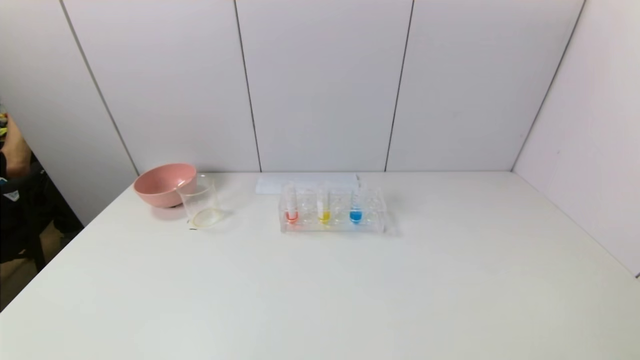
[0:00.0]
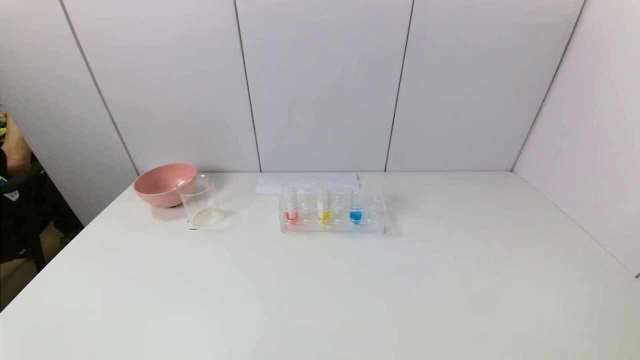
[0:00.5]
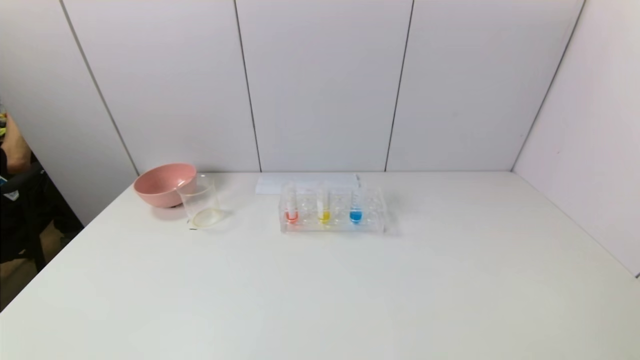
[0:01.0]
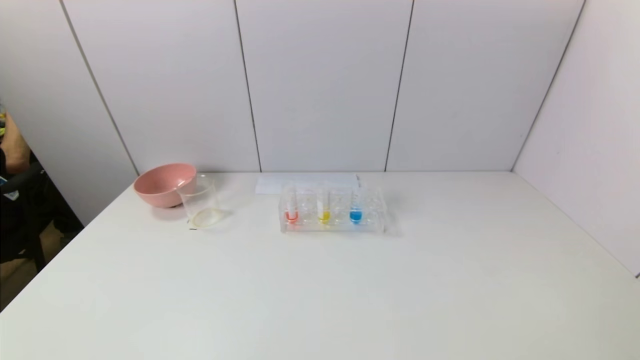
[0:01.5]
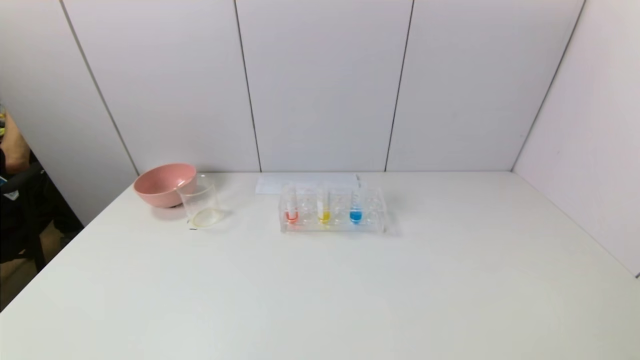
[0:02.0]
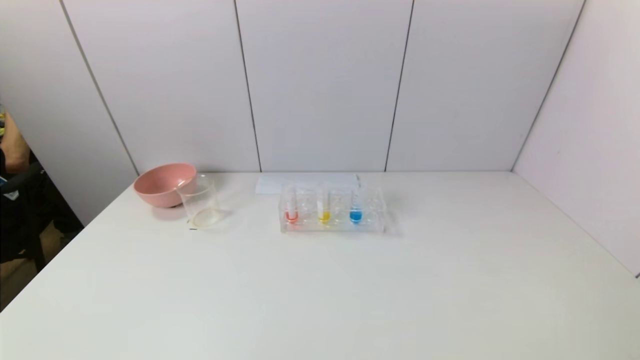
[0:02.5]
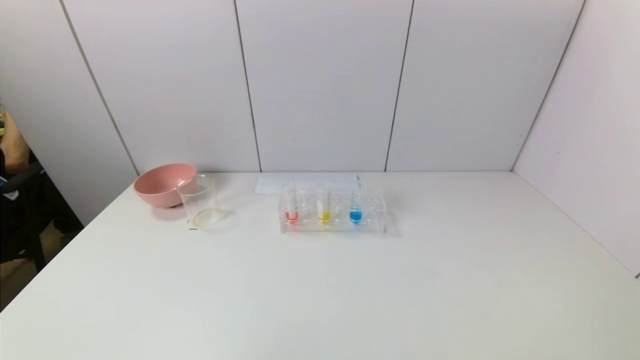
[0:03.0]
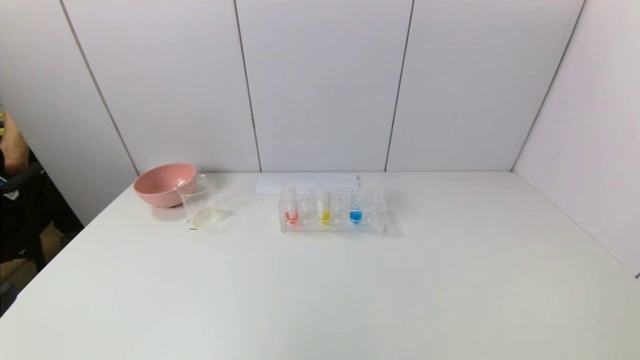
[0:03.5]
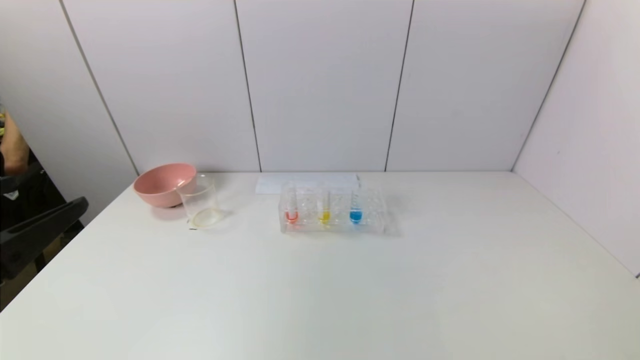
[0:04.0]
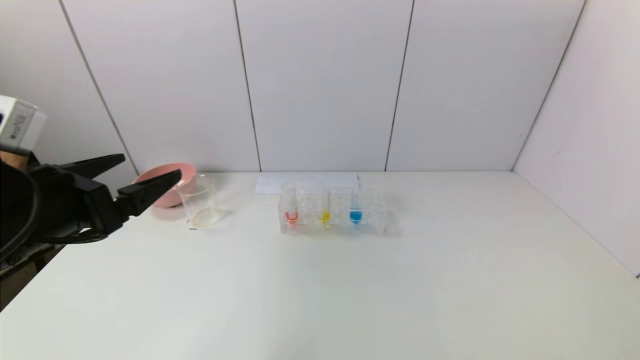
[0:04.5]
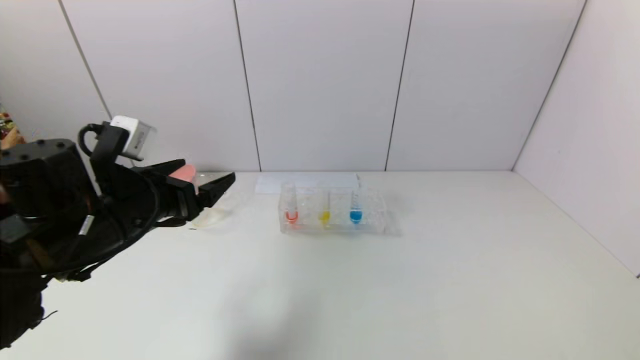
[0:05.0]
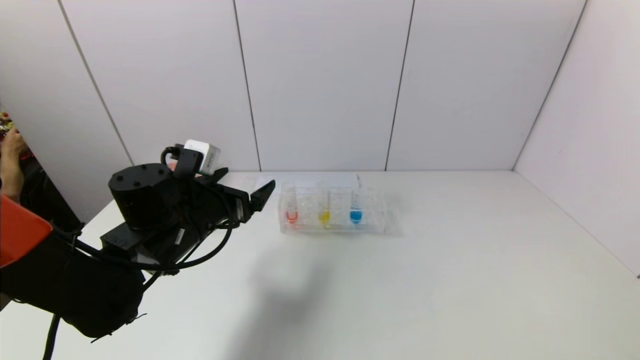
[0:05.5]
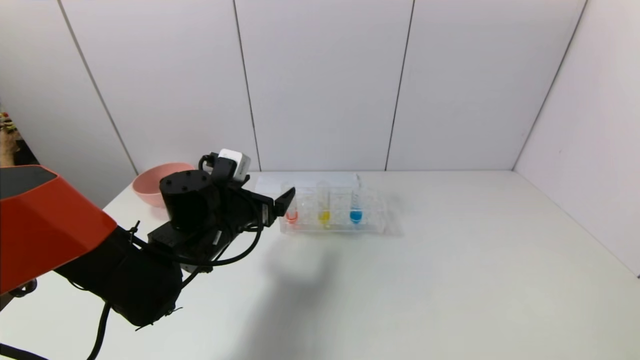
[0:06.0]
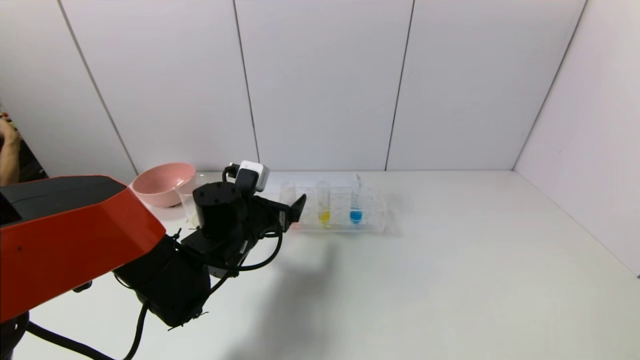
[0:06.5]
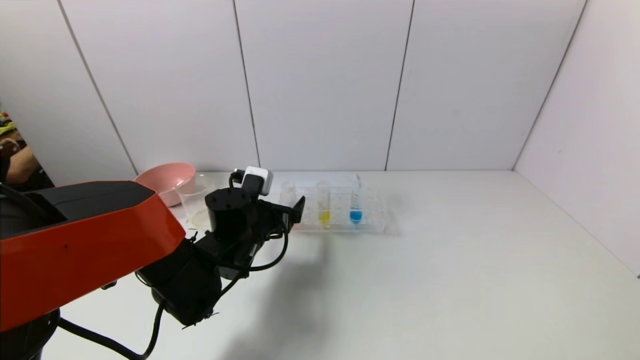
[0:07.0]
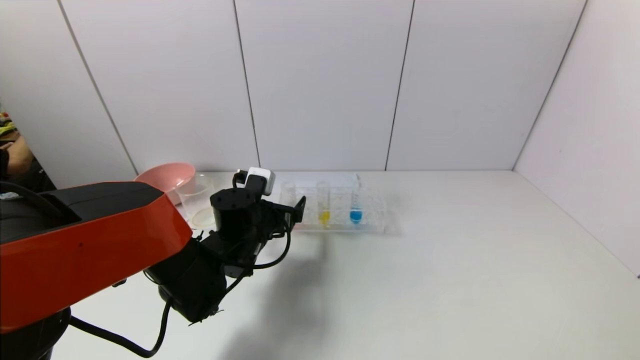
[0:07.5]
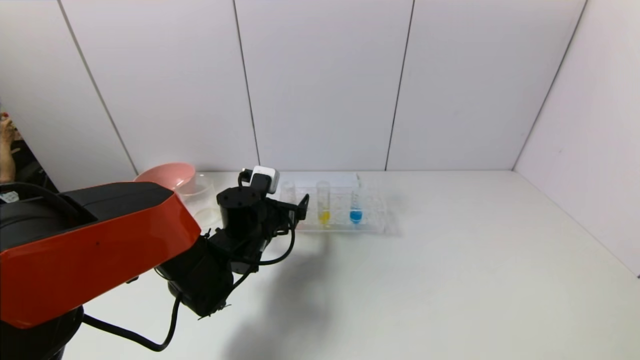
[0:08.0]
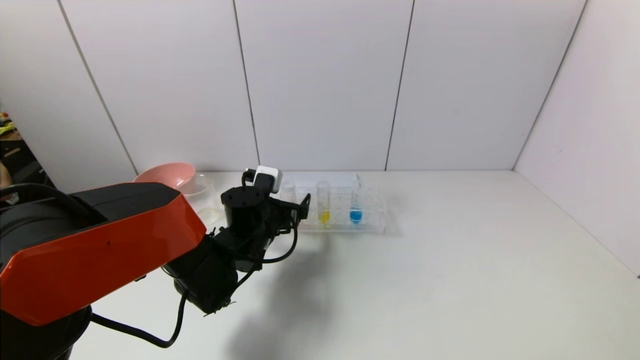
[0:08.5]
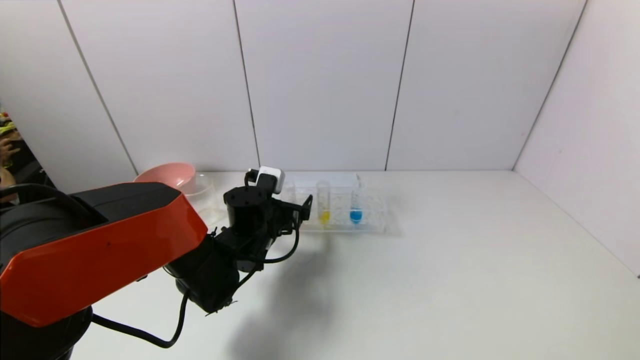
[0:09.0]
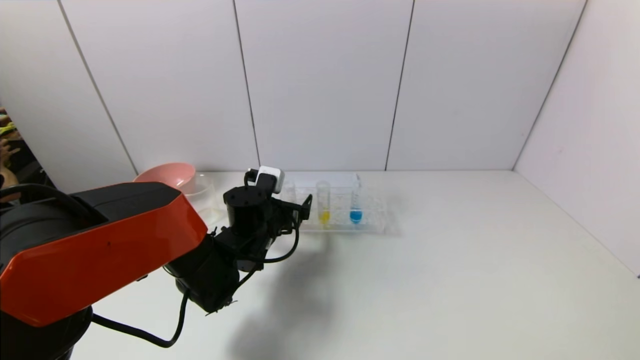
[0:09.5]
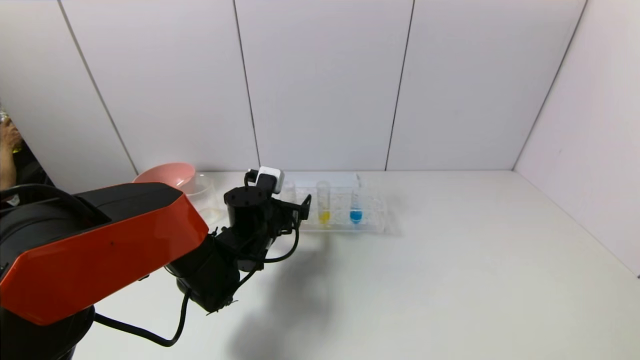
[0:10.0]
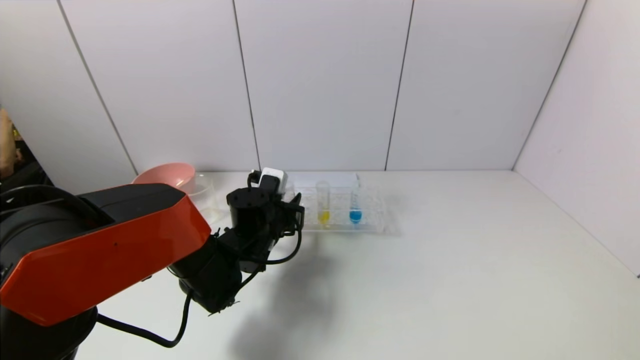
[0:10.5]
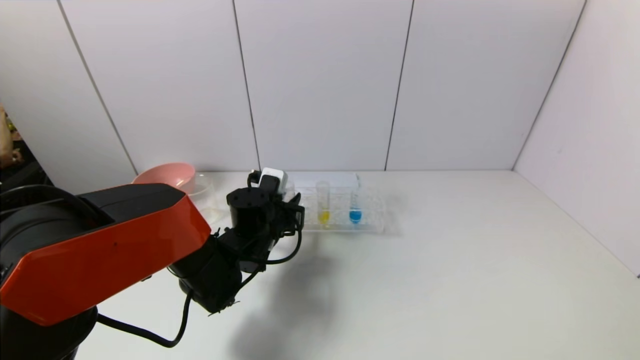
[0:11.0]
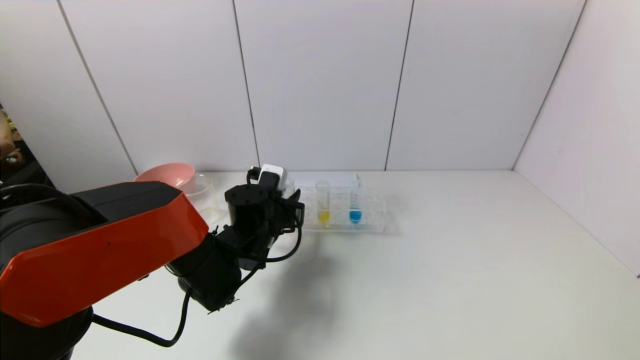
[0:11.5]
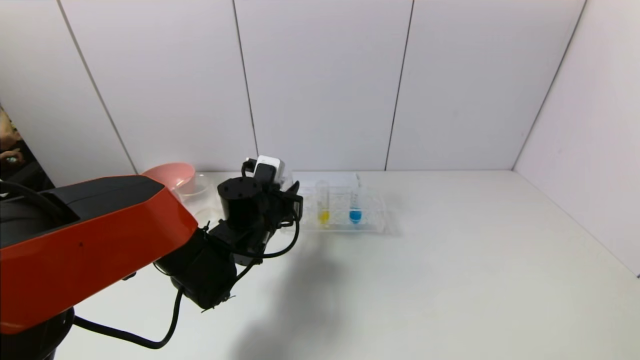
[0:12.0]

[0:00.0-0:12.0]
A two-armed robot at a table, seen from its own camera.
Task of the whole recording: pick up the test tube with yellow pigment and the test tube with red pigment by grippers and pour them into the beaker.
Step, 0:00.0 to 0:10.5: Grasp the red reagent with the left gripper.
0:00.0 to 0:02.0: Both grippers stay about where they are.
0:04.0 to 0:06.0: The left gripper travels forward, to the right and downward by roughly 30 cm.
0:06.0 to 0:08.0: The left gripper changes place by approximately 5 cm.
0:08.0 to 0:10.0: Both grippers stay put.
0:10.0 to 0:12.0: The left gripper closes its fingers.

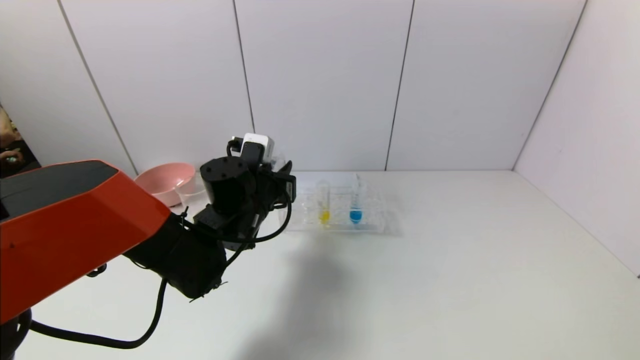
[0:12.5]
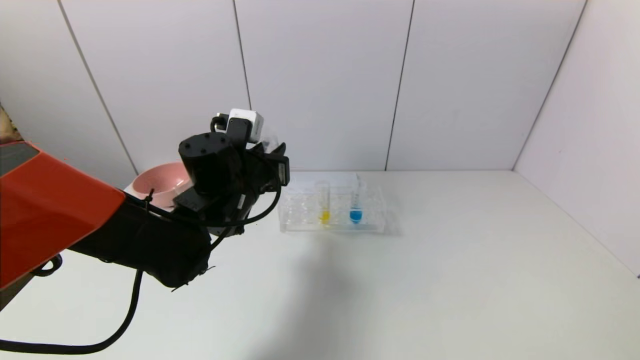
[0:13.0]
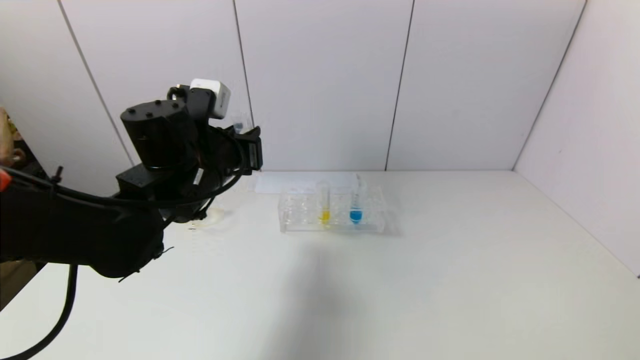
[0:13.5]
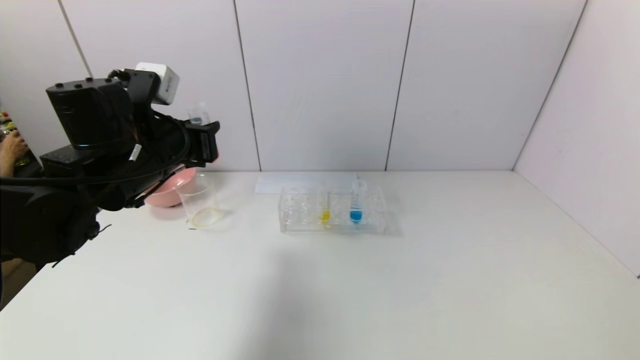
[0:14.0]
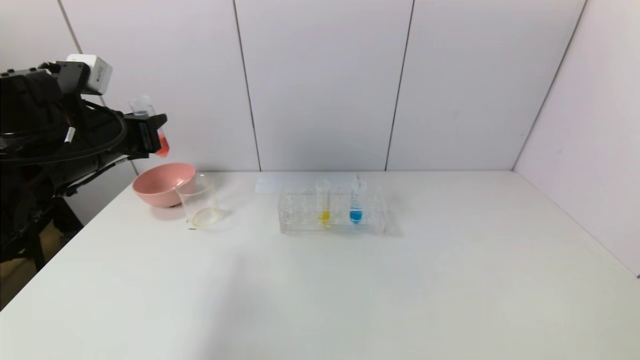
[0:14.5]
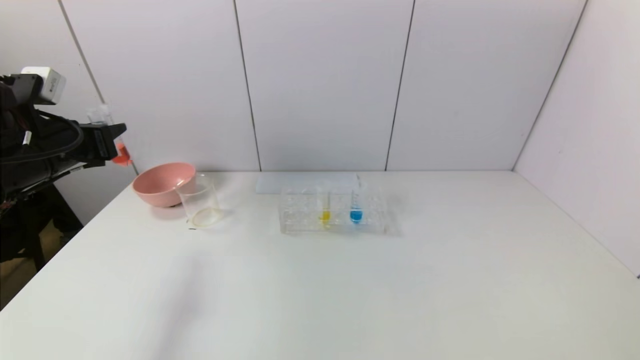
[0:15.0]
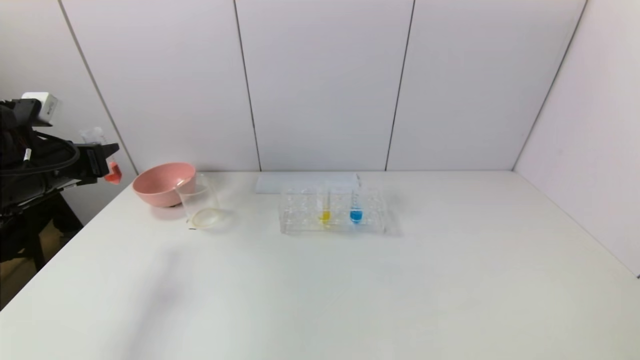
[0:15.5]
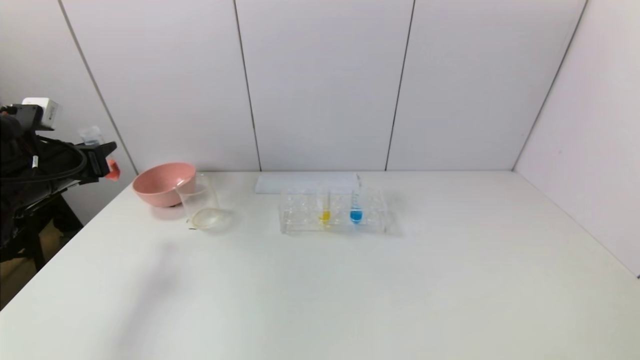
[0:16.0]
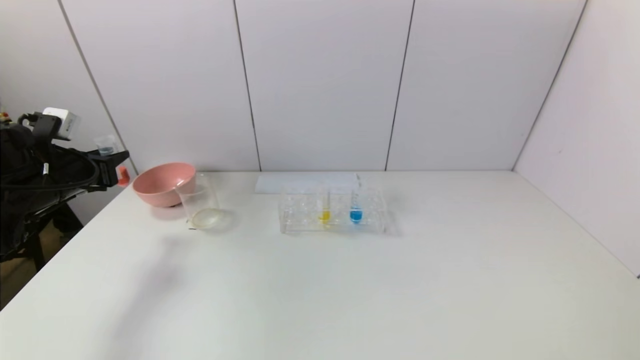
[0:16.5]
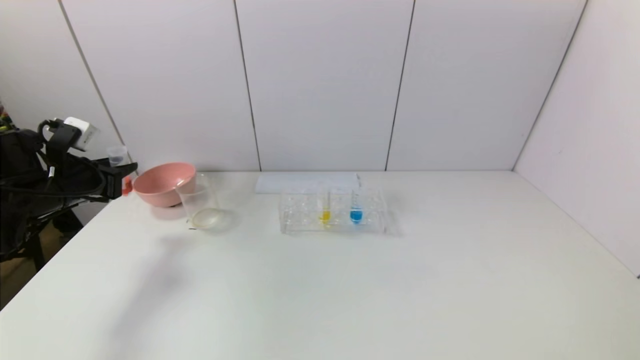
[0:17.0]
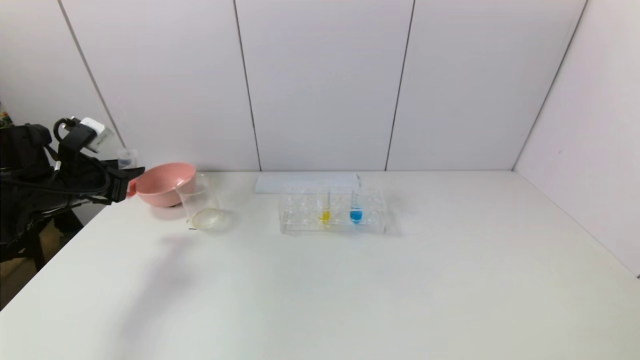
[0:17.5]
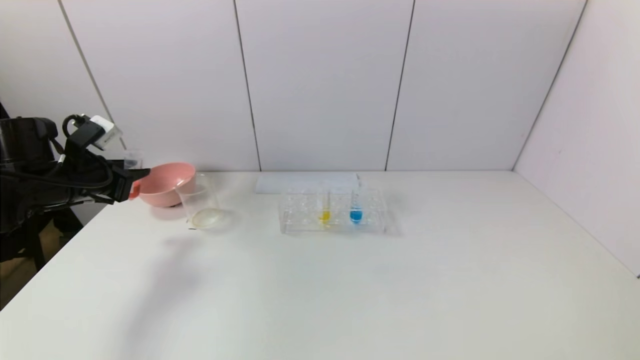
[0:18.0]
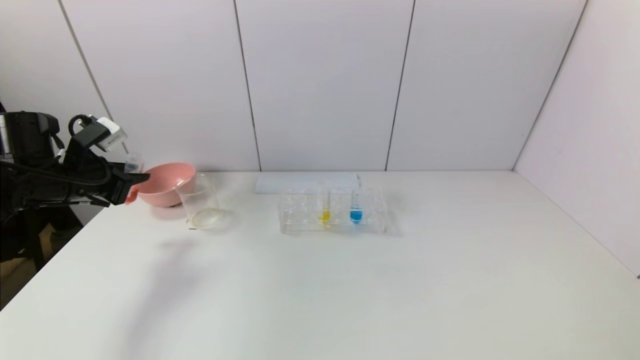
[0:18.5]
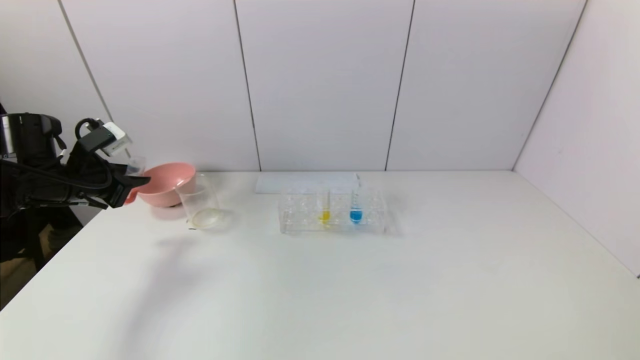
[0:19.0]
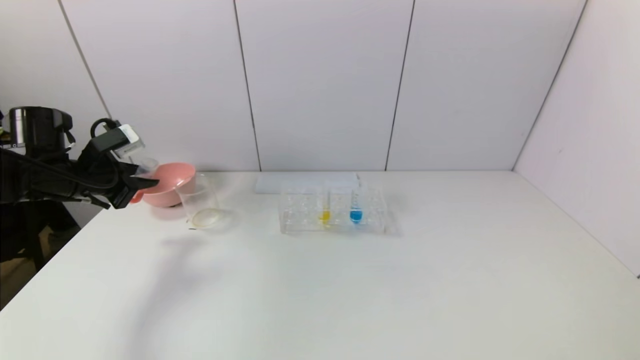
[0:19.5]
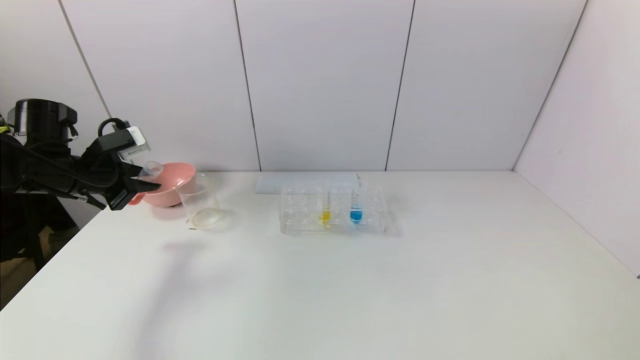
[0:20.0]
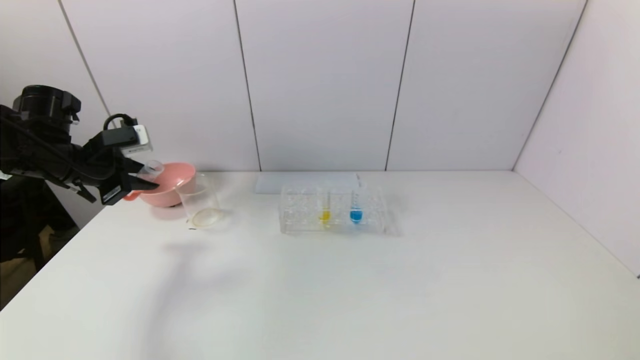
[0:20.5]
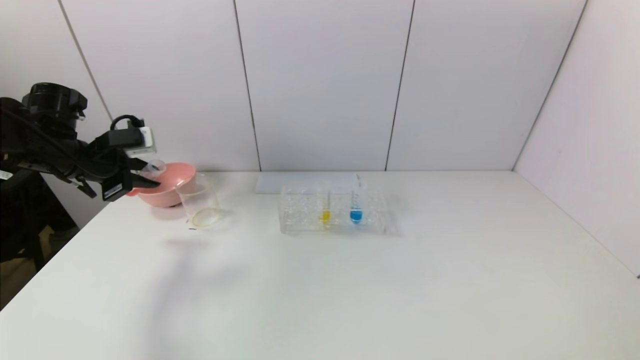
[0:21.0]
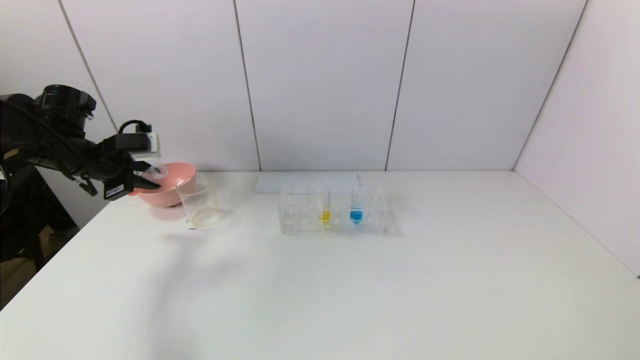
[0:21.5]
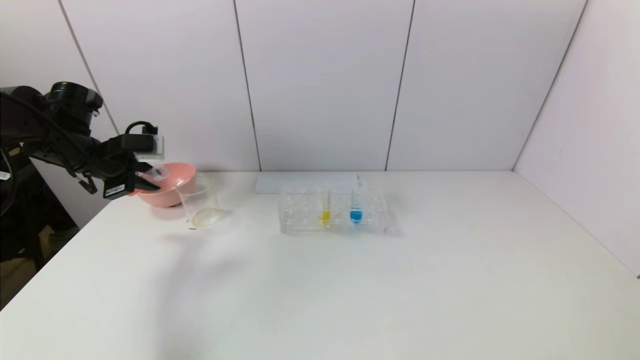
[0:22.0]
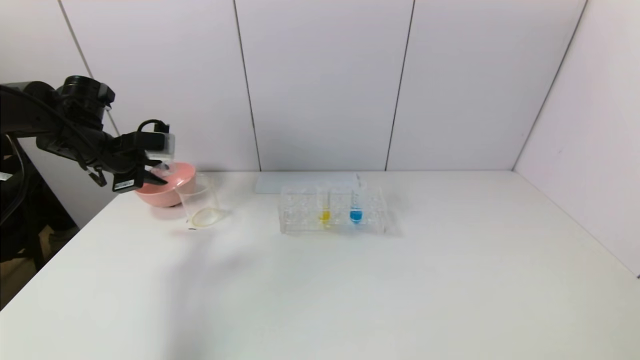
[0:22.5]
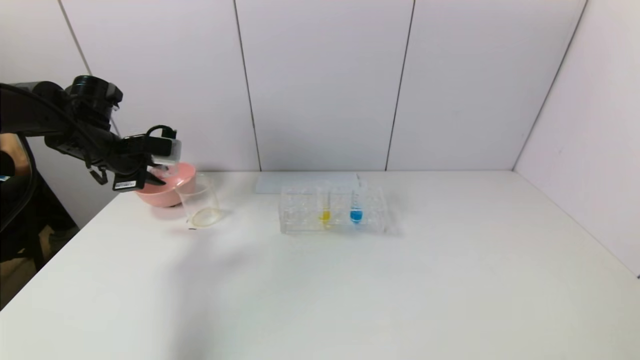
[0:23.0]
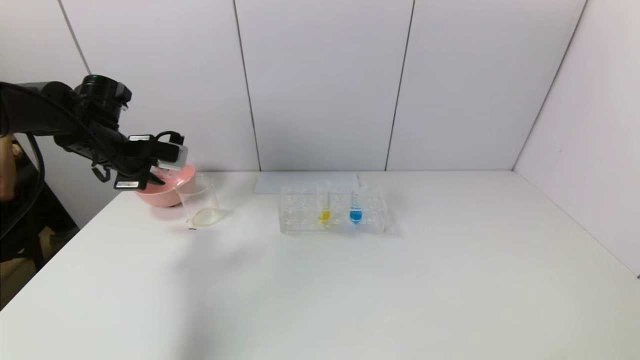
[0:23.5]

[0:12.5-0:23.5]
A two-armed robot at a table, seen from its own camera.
Task of the whole recording: pick up the test tube with yellow pigment and the test tube with red pigment by grippers and pour them into the beaker.
0:12.5 to 0:14.5: The left gripper travels to the left and upward by about 20 cm.
0:14.5 to 0:16.0: The left gripper shifts approximately 10 cm to the left and downward.
